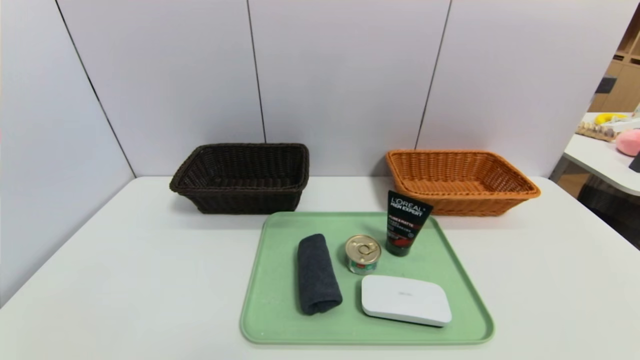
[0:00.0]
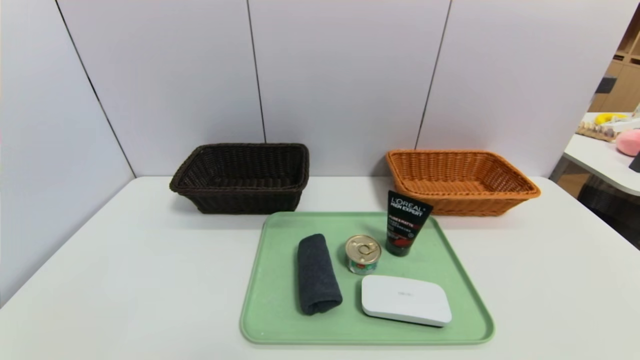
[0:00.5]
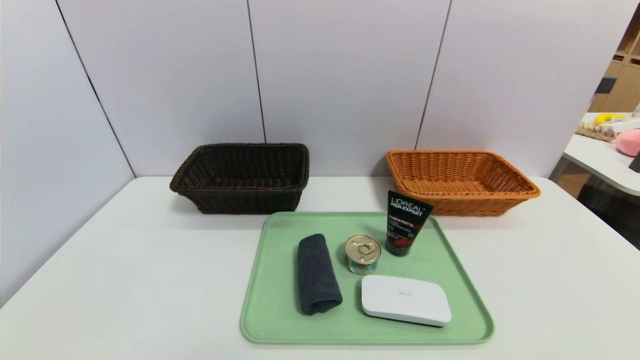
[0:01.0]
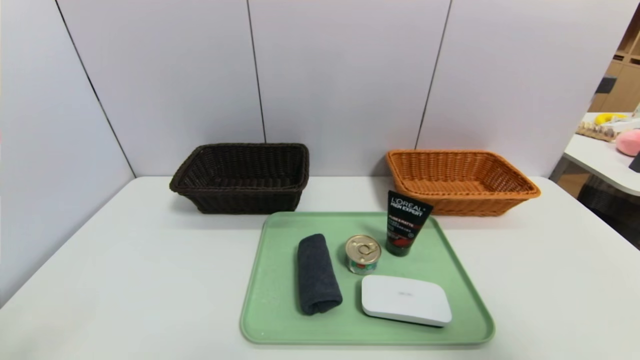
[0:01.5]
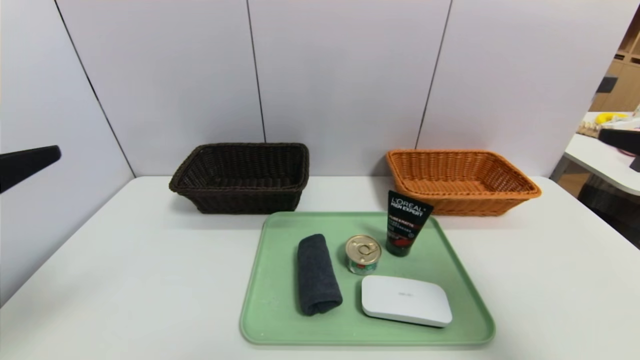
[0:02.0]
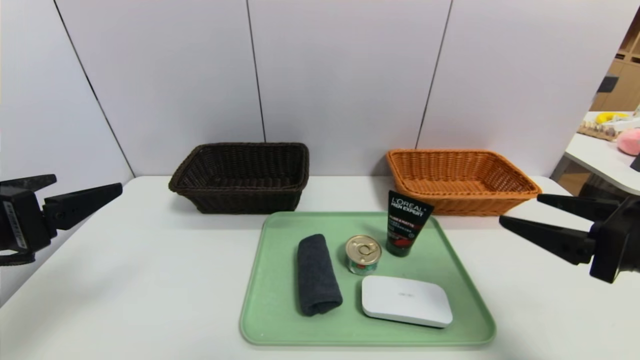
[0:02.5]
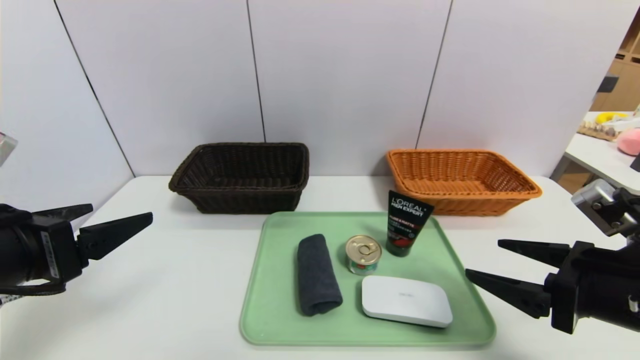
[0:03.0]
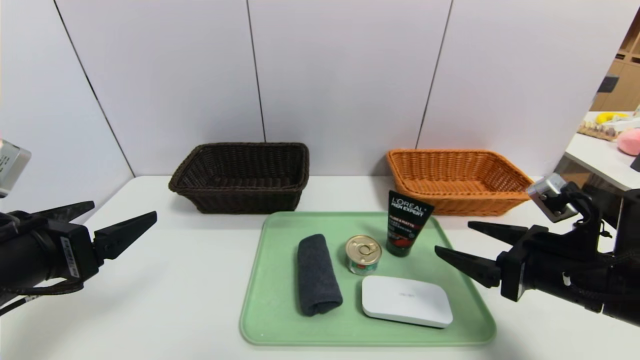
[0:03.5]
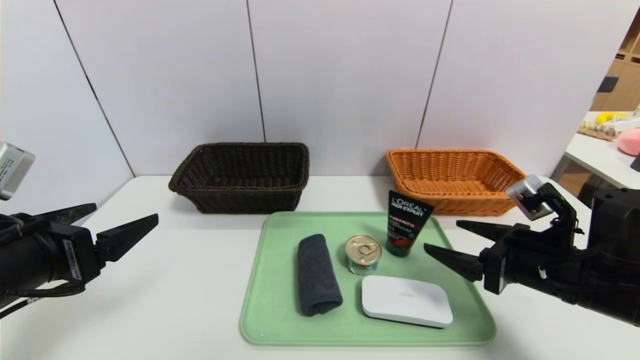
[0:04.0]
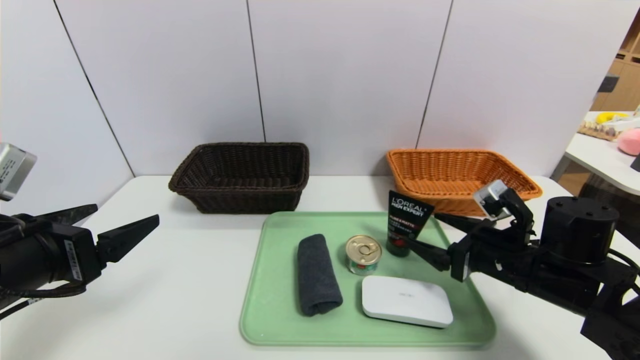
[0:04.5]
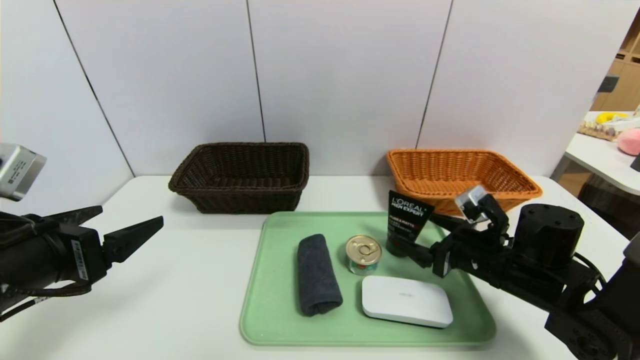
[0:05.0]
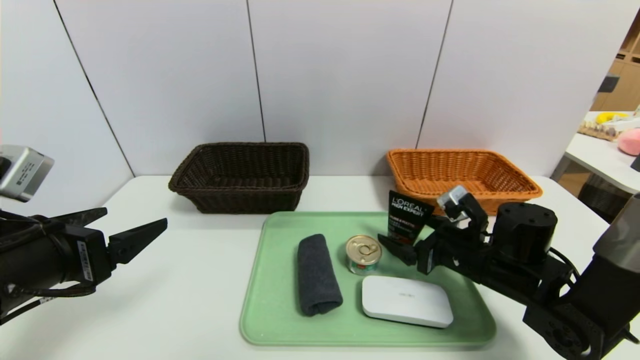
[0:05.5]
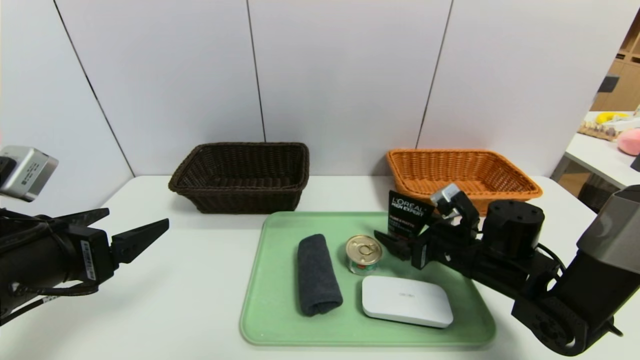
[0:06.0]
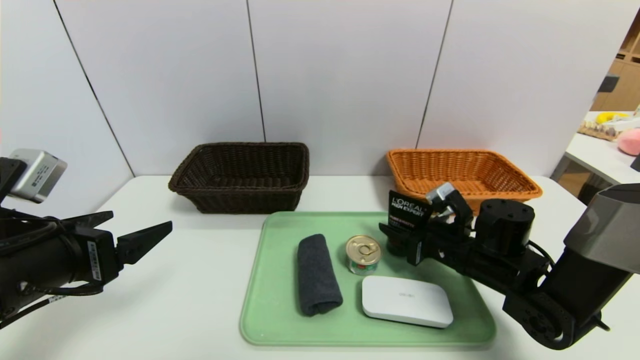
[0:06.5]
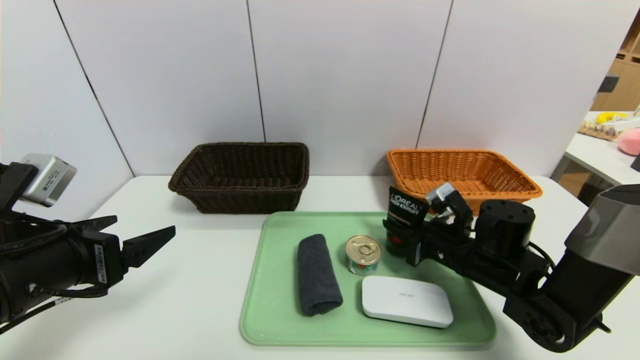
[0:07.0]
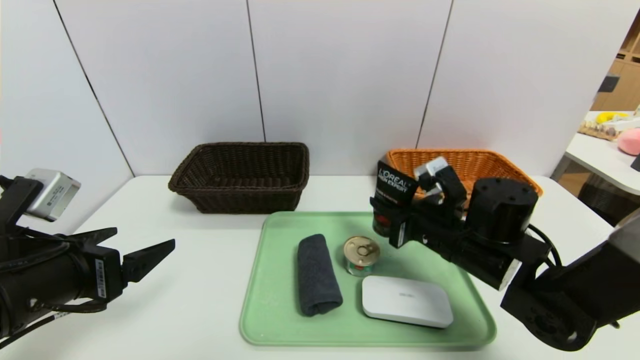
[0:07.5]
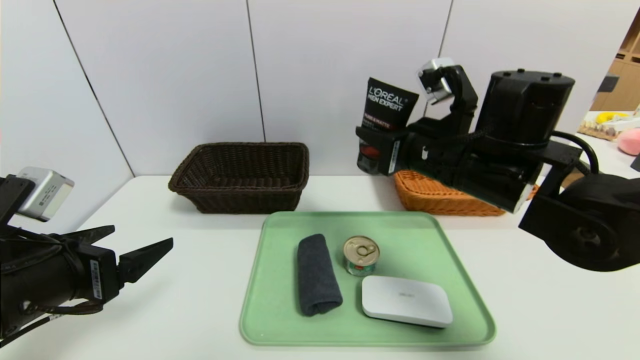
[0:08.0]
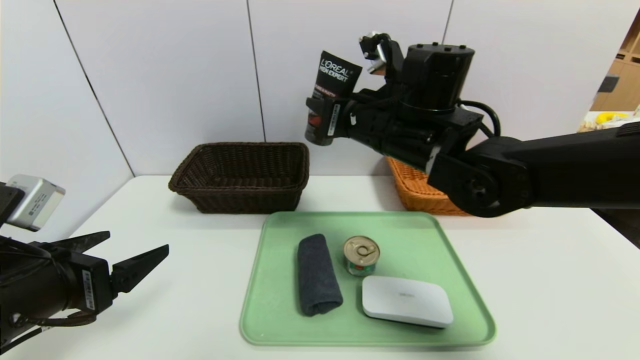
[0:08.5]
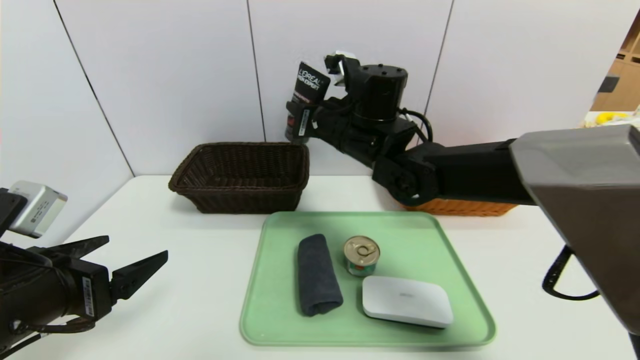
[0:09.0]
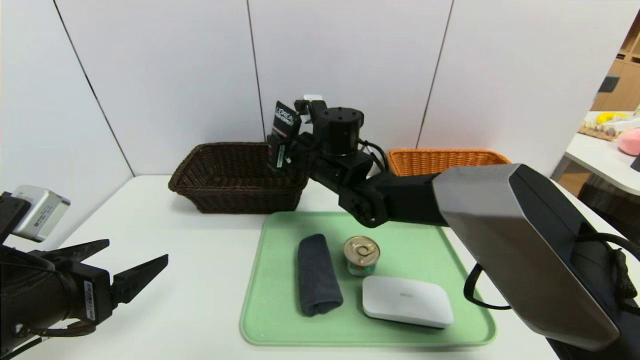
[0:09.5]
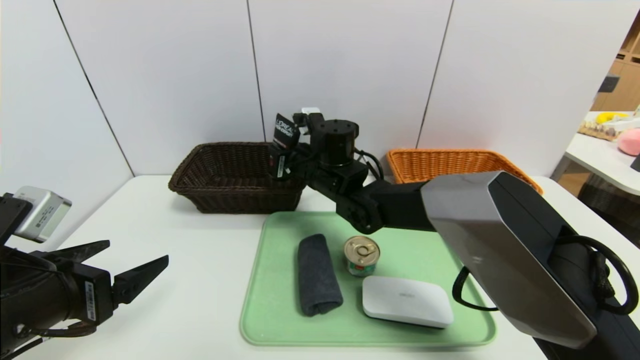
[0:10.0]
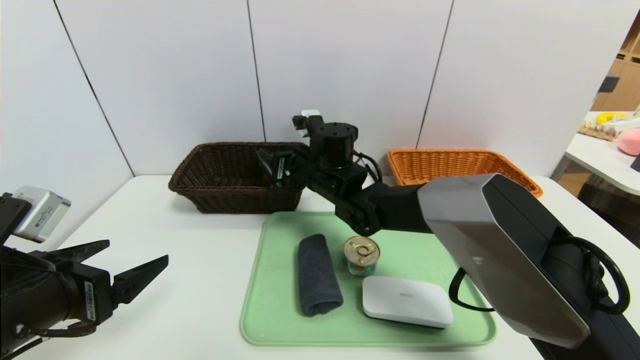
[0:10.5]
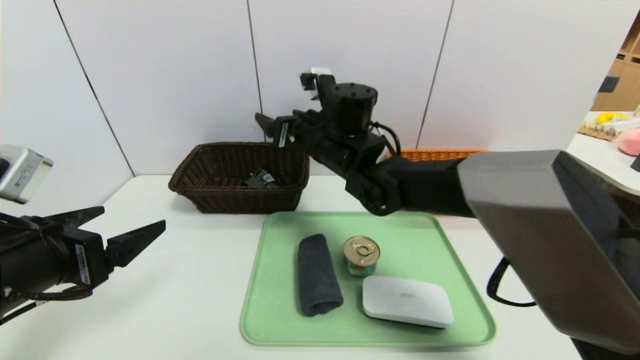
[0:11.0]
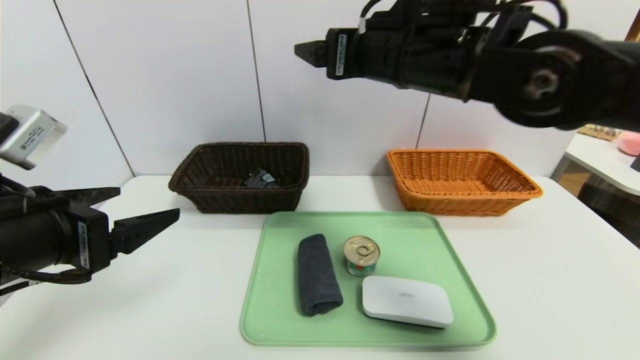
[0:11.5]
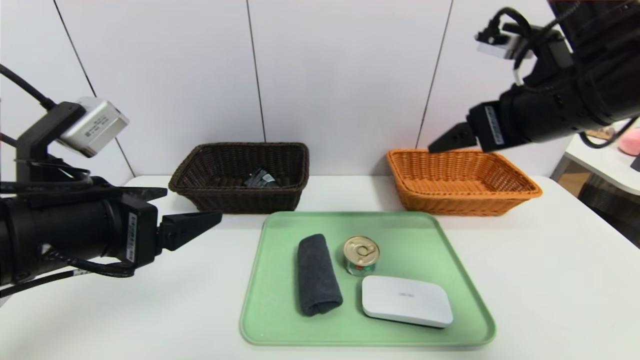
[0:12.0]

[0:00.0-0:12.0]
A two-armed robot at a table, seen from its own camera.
Task of the whole recording: place the food in the right basket with the right gripper, and place the non food items in the left basket with the left gripper.
Step, 0:00.0 to 0:10.5: Grasp the hard cleanser and put it in the left basket.
0:00.0 to 0:02.0: Both grippers move upward and forward, some 25 cm.
0:02.0 to 0:04.0: The right gripper goes roughly 20 cm downward and forward. The left gripper heads downward, covering approximately 10 cm.
0:04.0 to 0:06.0: The right gripper travels forward and downward by about 10 cm.
0:06.0 to 0:08.0: The right gripper moves upward and to the left, roughly 20 cm, and closes up.
0:08.0 to 0:10.0: The right gripper goes roughly 20 cm to the left, forward and downward.
0:10.0 to 0:12.0: The right gripper heads to the right, upward and backward, covering roughly 30 cm, and opens, while the left gripper moves upward and to the right, some 10 cm.

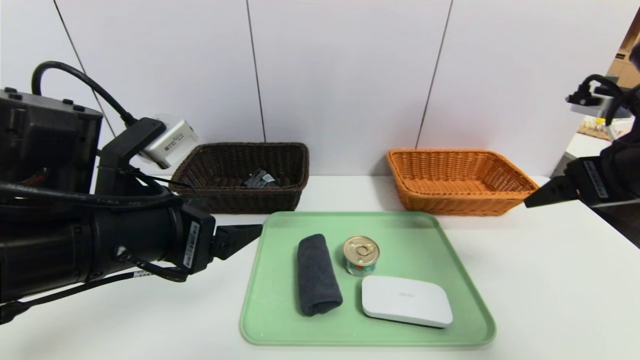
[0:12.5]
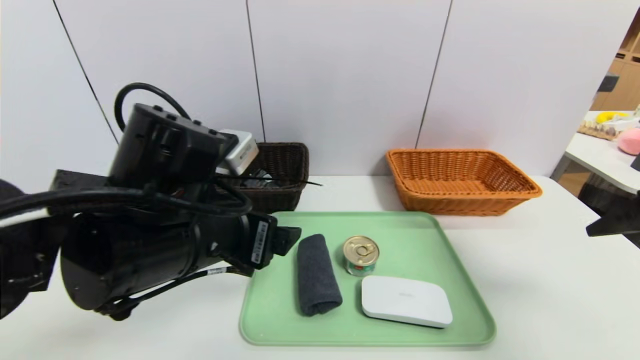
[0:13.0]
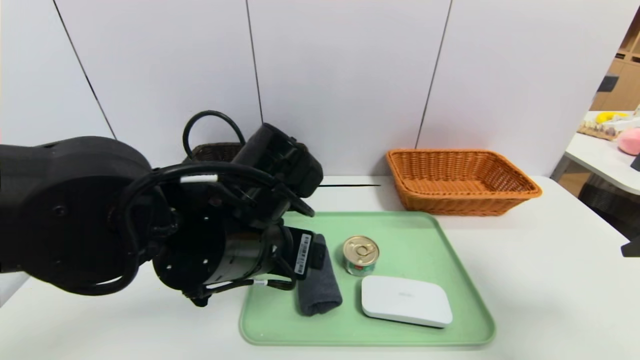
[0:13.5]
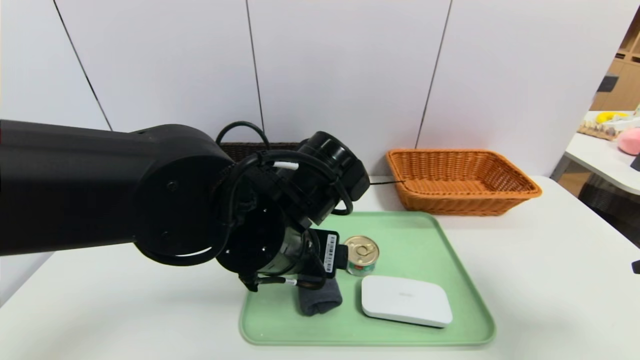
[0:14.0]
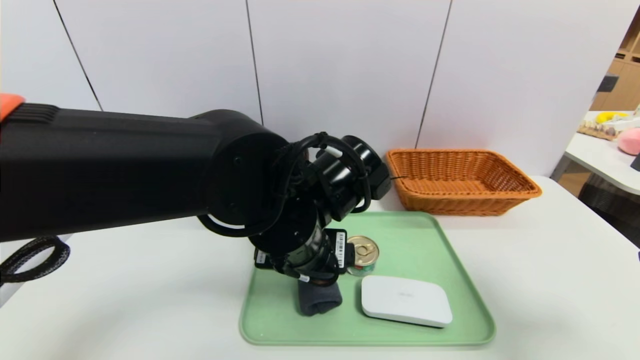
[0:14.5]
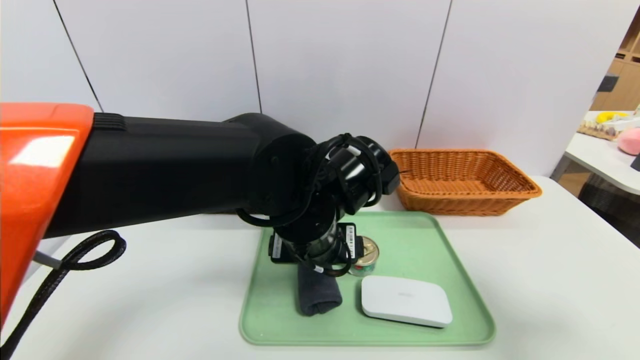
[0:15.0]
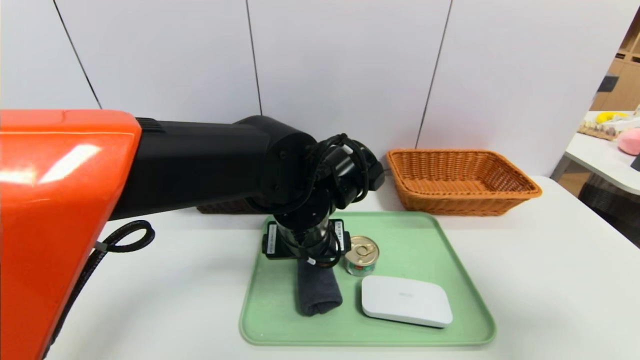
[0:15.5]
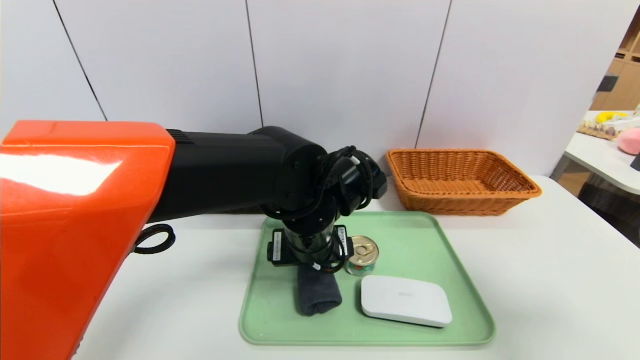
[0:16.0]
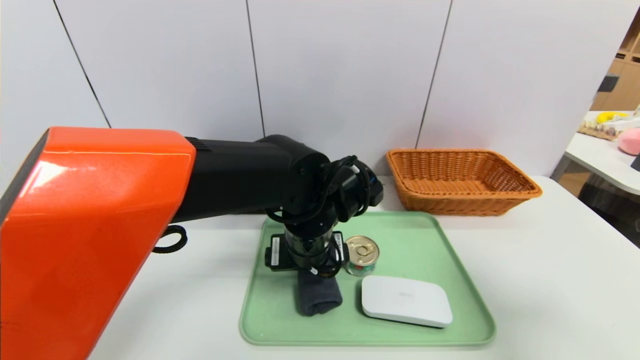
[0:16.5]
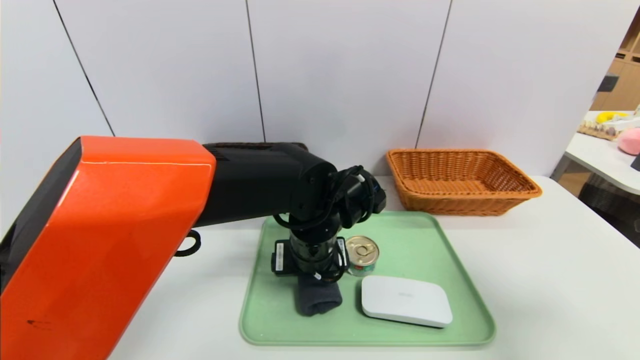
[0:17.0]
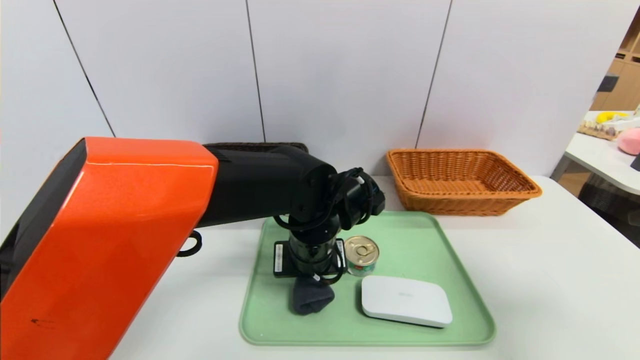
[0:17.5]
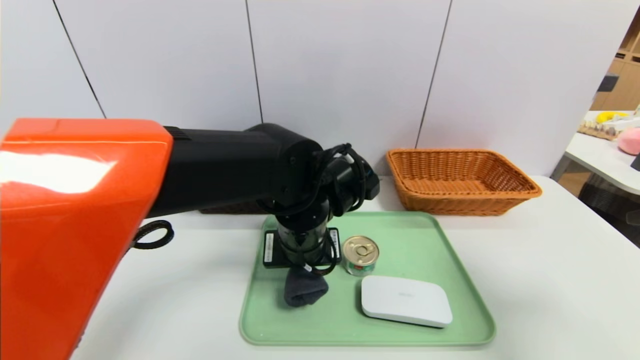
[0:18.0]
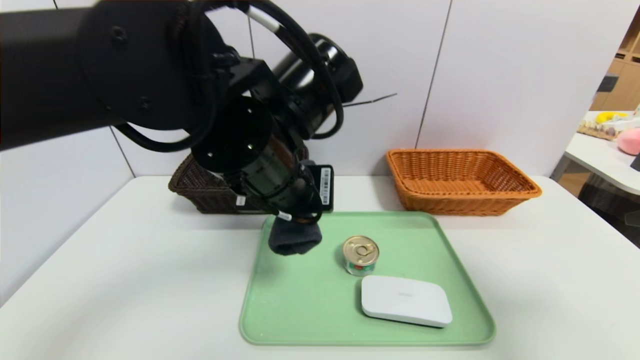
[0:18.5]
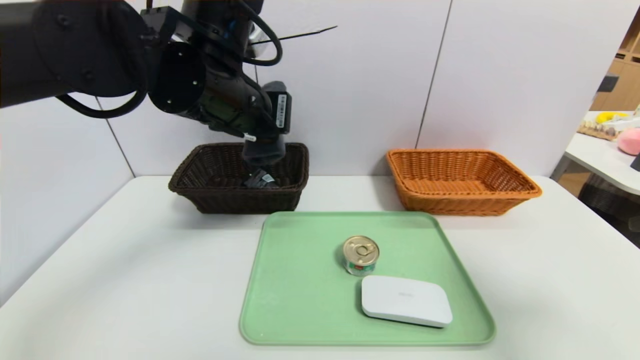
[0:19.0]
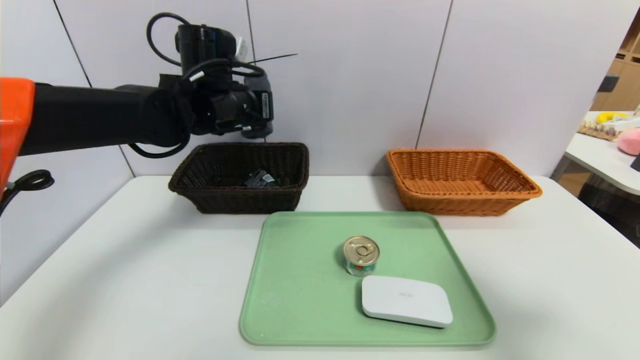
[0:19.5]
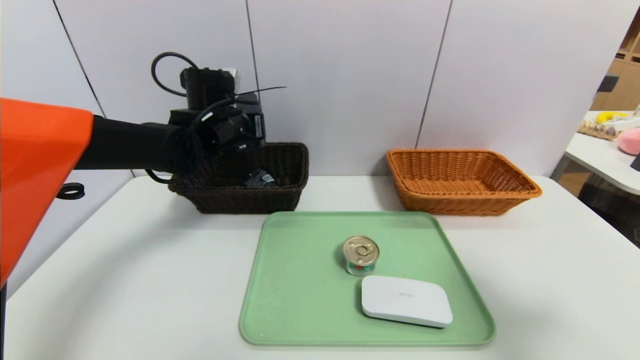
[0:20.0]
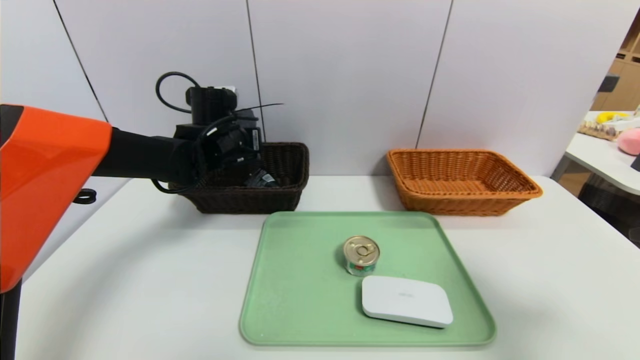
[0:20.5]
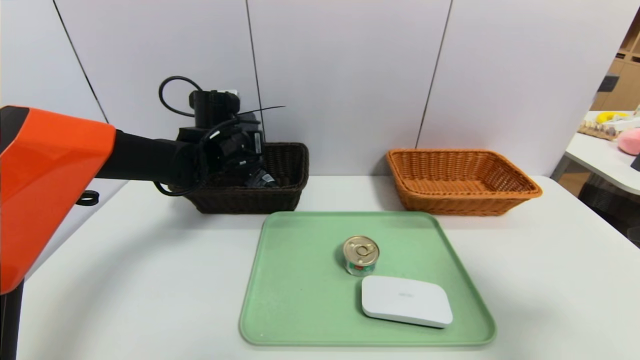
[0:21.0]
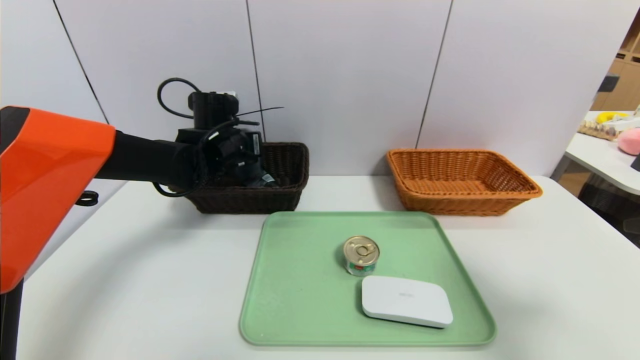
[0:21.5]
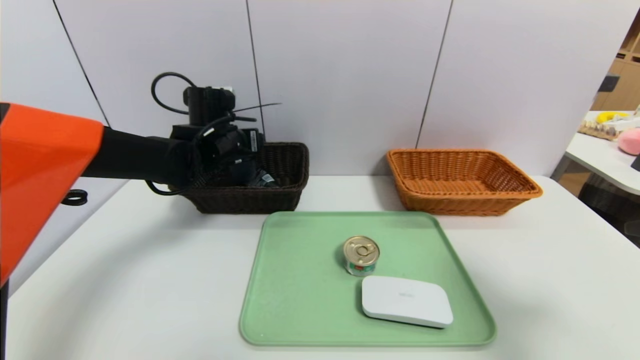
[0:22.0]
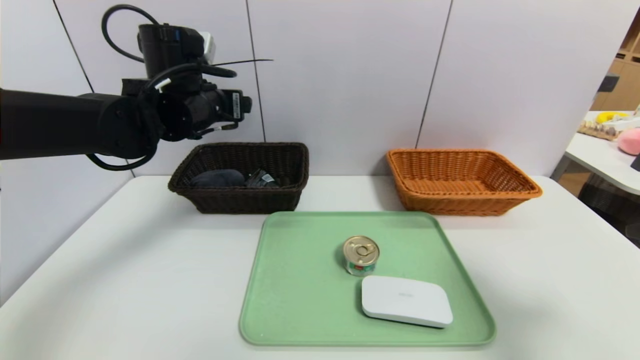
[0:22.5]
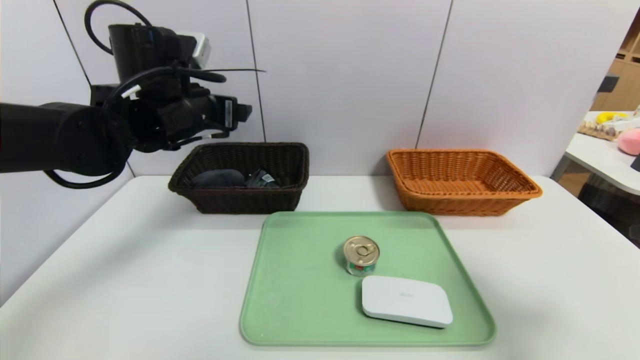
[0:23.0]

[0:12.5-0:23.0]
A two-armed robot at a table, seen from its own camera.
Task of the whole recording: place the food in the right basket with the right gripper, and place the non food items in the left basket with the left gripper.
Step, 0:12.5 to 0:22.0: Grasp the grey towel and put it in the left basket.
0:12.5 to 0:14.5: The left gripper heads to the right, covering some 15 cm, while the right gripper shifts roughly 10 cm backward.
0:14.5 to 0:16.5: The left gripper changes place by approximately 5 cm.
0:16.5 to 0:19.0: The left gripper moves upward and to the left, approximately 20 cm, and closes up.
0:19.0 to 0:21.0: The left gripper is displaced forward, downward and to the left by about 20 cm.
0:21.0 to 0:23.0: The left gripper heads backward and upward, covering roughly 10 cm, and opens up.
